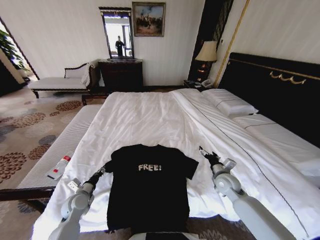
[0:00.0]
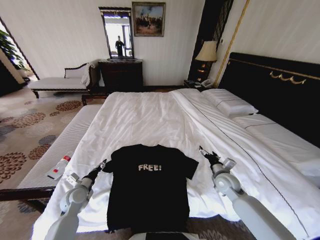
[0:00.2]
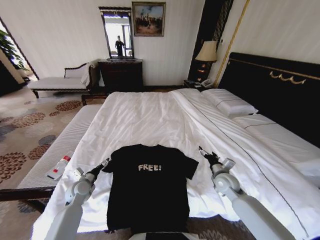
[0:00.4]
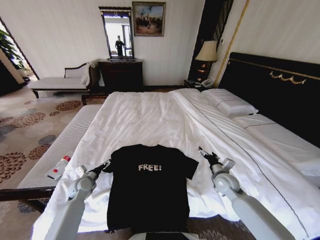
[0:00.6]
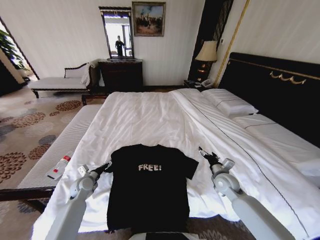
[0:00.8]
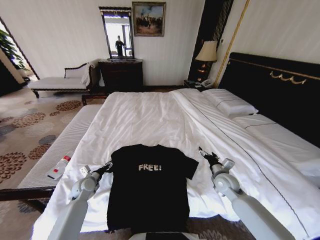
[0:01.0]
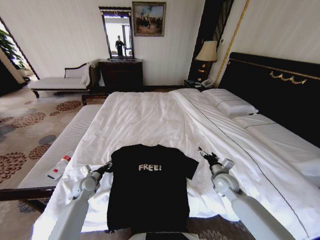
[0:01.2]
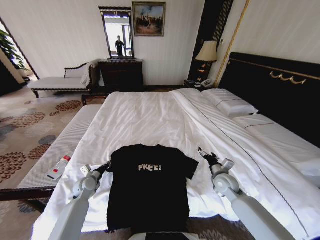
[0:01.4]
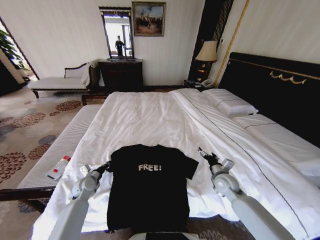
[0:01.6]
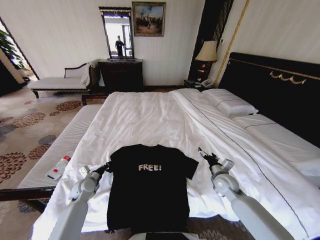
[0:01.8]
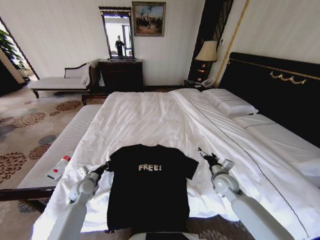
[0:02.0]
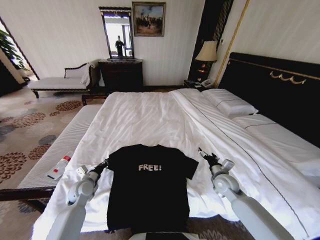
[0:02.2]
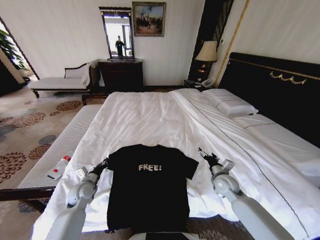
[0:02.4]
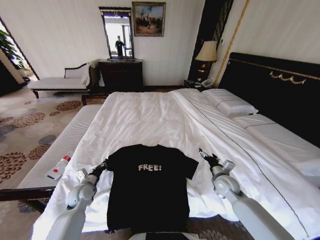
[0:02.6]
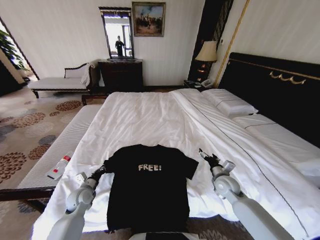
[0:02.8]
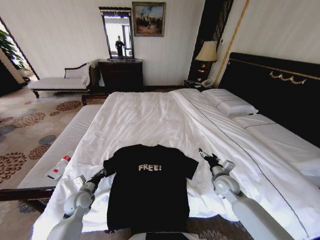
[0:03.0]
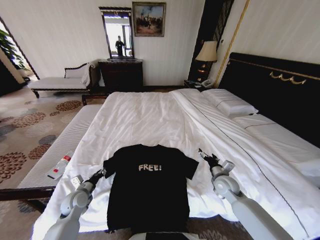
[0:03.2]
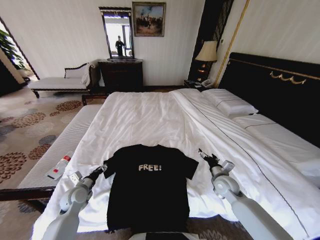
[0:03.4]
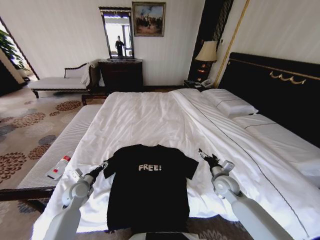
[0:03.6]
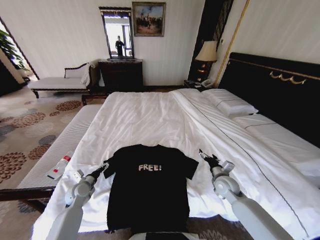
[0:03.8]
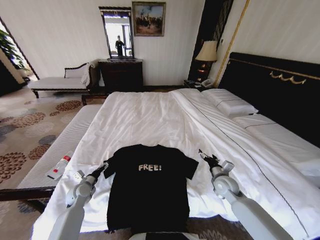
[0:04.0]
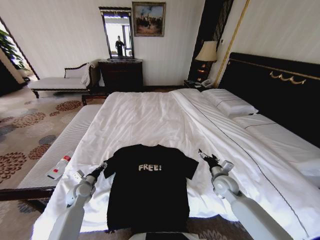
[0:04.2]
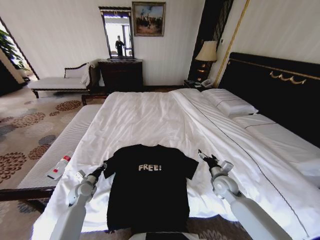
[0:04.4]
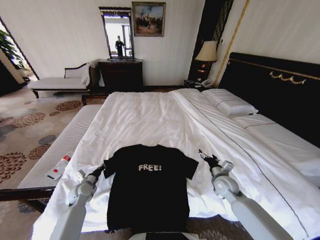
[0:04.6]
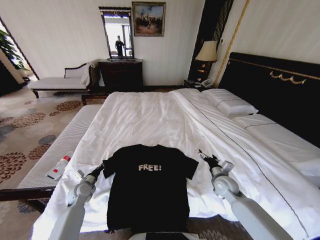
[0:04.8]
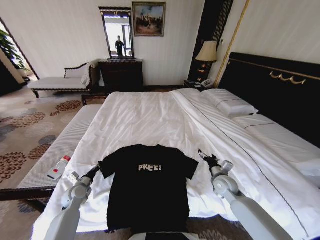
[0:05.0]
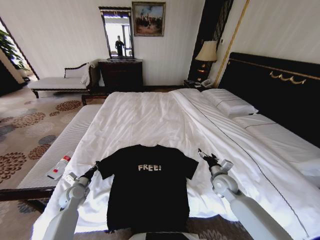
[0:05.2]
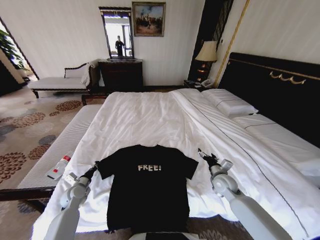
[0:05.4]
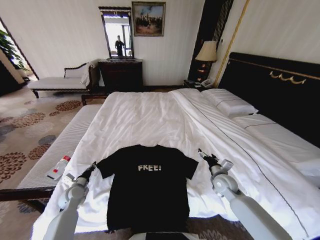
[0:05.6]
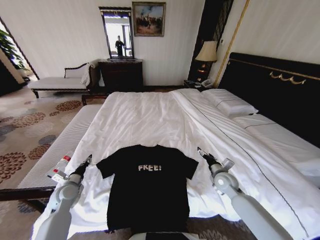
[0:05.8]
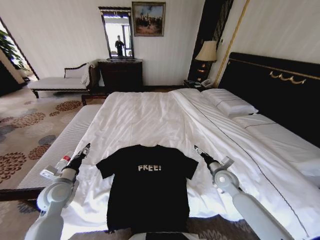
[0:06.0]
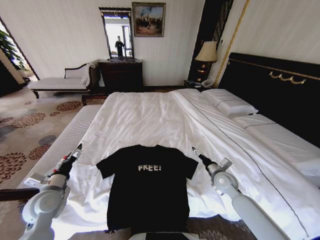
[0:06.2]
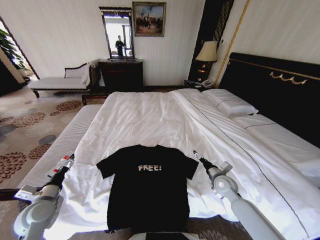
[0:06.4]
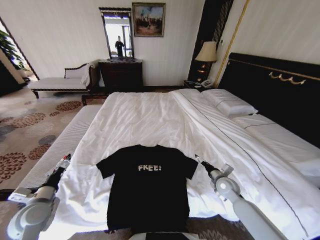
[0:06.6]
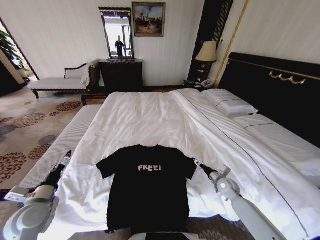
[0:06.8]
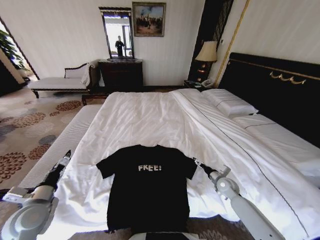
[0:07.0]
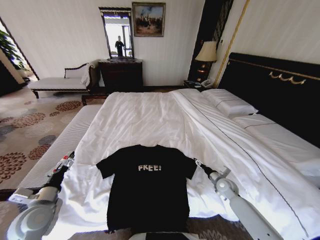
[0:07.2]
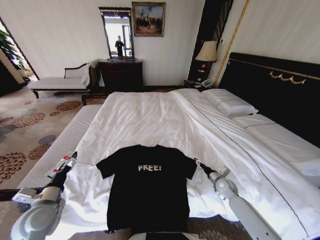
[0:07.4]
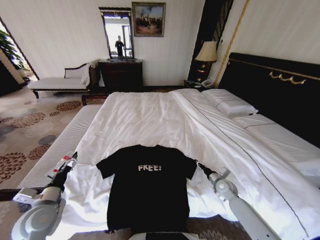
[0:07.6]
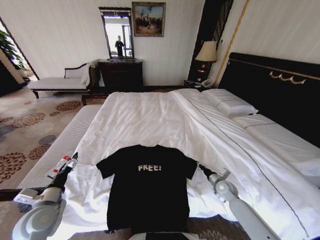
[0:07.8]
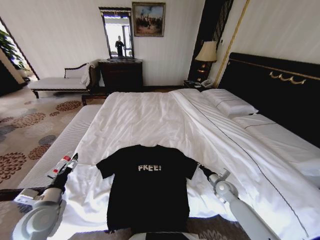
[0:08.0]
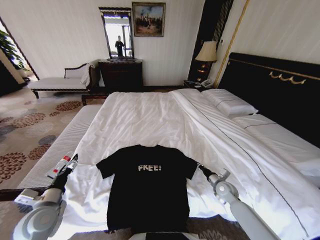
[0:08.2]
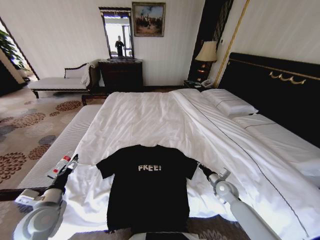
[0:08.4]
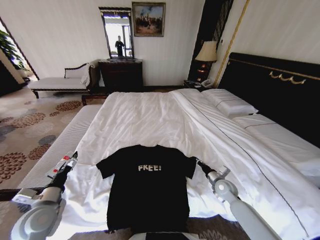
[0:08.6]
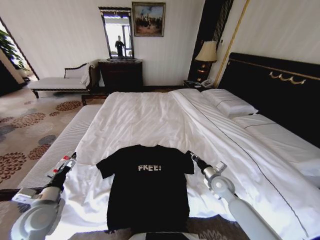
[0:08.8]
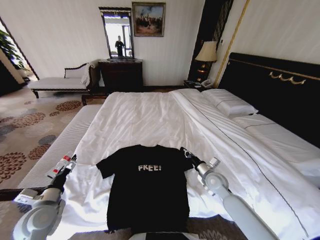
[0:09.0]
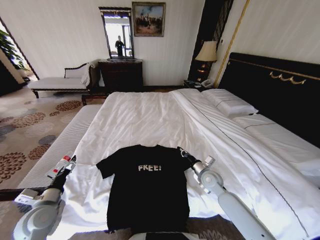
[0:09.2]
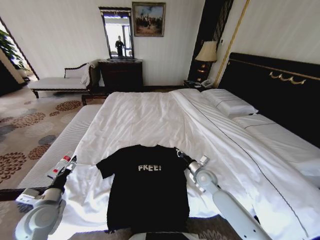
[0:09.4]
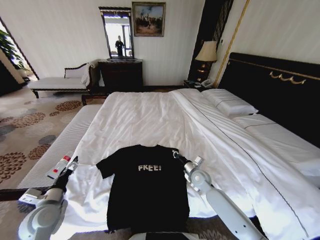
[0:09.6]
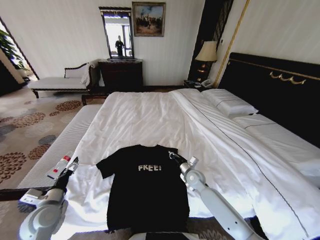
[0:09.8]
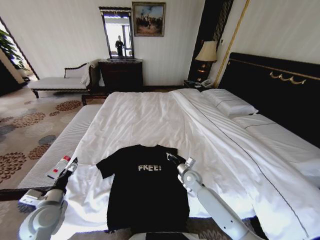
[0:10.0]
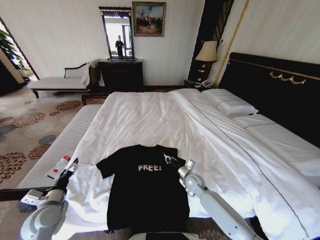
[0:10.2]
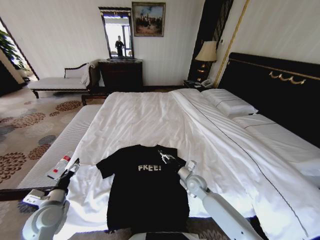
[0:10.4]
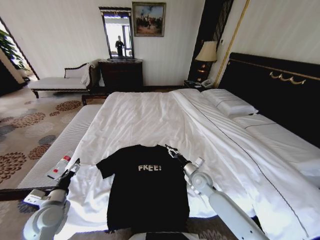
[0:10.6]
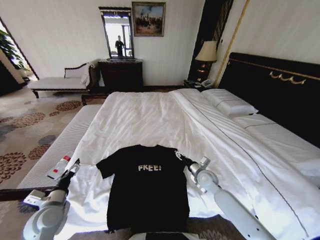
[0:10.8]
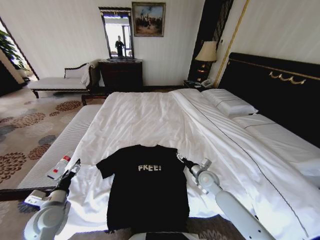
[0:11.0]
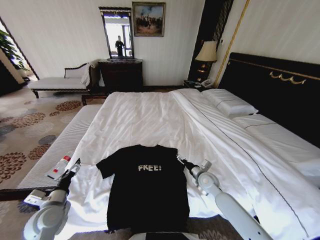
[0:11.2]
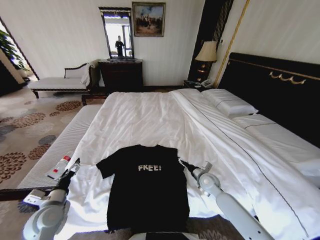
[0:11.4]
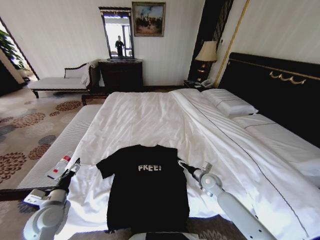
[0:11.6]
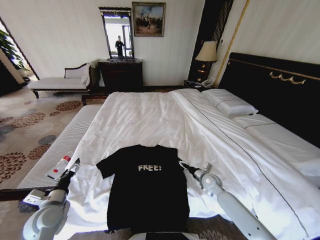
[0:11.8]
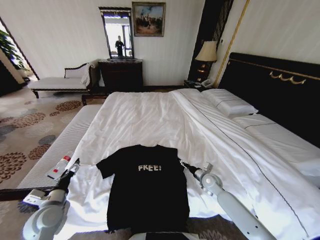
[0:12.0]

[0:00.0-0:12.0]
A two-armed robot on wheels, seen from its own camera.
Task of the whole recording: Fold the clothes on the bed.
0:00.0 to 0:01.6: The left gripper is displaced forward by roughly 10 cm, and opens, then closes again.
0:01.6 to 0:03.0: The left gripper travels backward by some 5 cm.
0:03.0 to 0:04.4: The left gripper changes place by about 5 cm, and opens and closes again.
0:04.4 to 0:06.0: The left gripper moves upward, approximately 15 cm.
0:06.0 to 0:07.6: The left gripper goes about 10 cm backward, and opens up. The right gripper moves downward, roughly 10 cm, and closes up.
0:07.6 to 0:09.0: The right gripper is displaced to the left and upward by approximately 15 cm, and closes.
0:09.0 to 0:10.4: The right gripper shifts about 10 cm to the left.
0:10.4 to 0:12.0: The right gripper goes approximately 10 cm to the right, and opens its fingers.

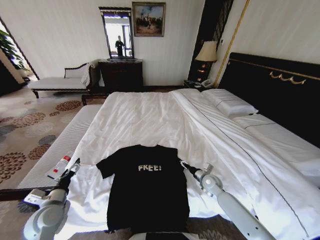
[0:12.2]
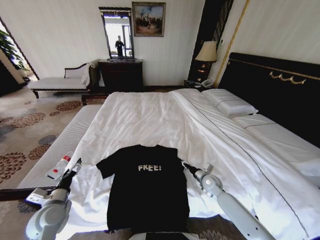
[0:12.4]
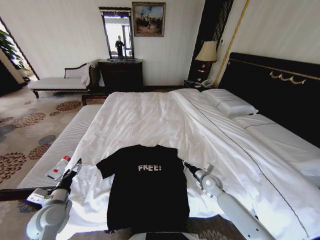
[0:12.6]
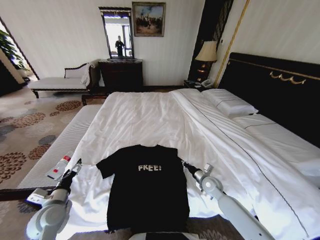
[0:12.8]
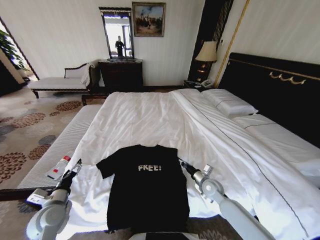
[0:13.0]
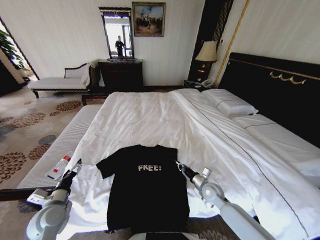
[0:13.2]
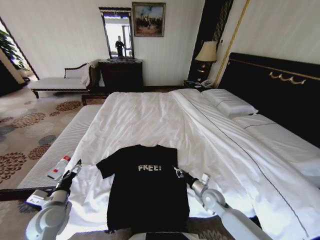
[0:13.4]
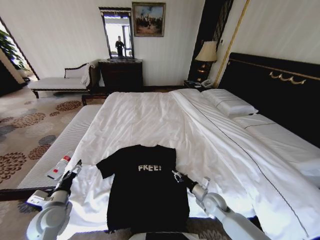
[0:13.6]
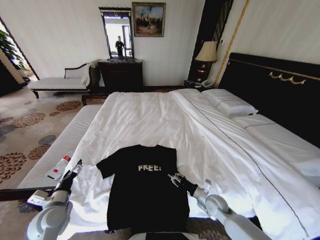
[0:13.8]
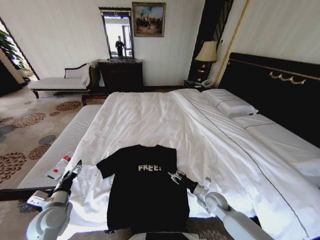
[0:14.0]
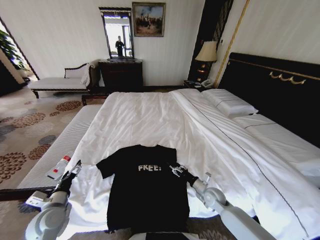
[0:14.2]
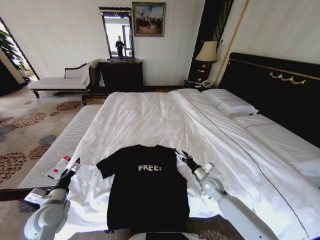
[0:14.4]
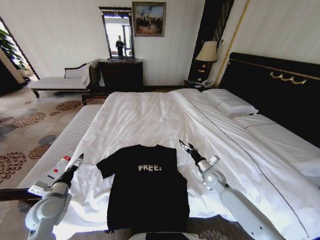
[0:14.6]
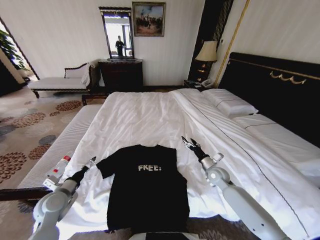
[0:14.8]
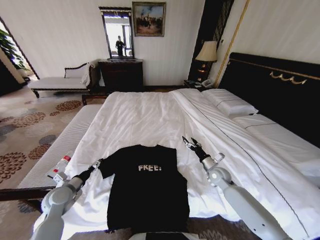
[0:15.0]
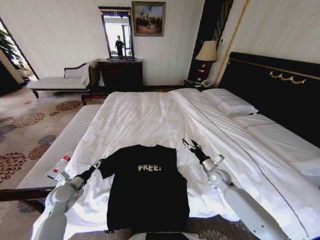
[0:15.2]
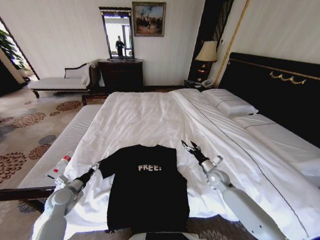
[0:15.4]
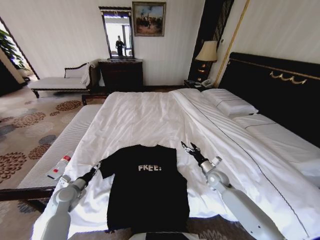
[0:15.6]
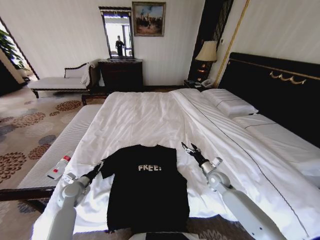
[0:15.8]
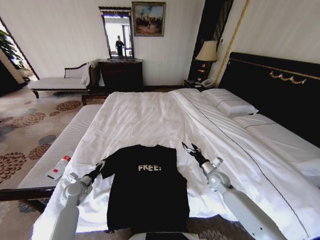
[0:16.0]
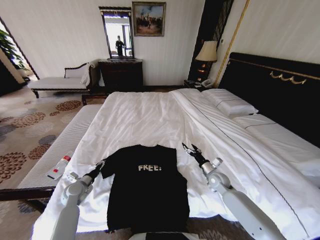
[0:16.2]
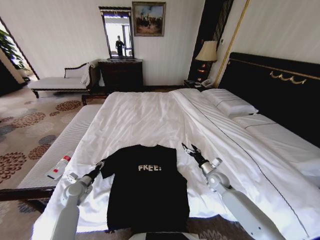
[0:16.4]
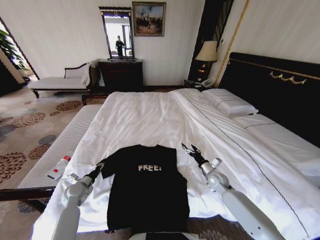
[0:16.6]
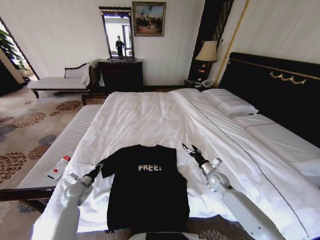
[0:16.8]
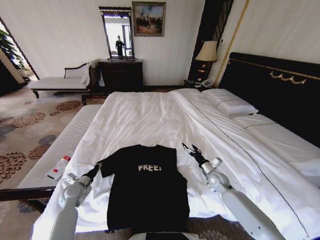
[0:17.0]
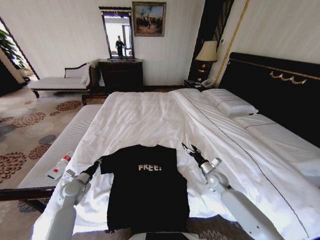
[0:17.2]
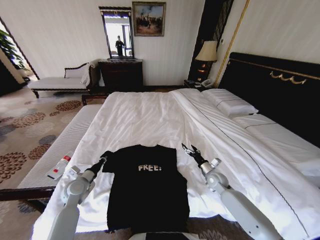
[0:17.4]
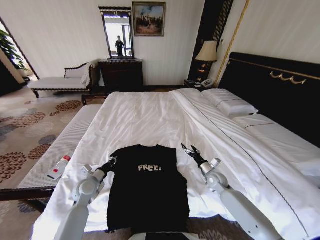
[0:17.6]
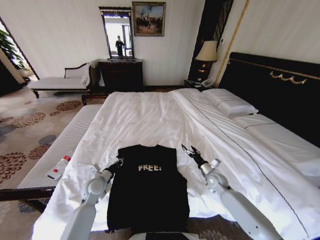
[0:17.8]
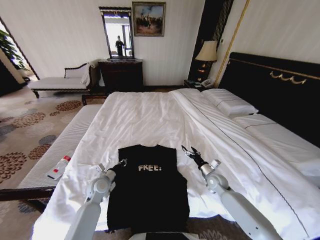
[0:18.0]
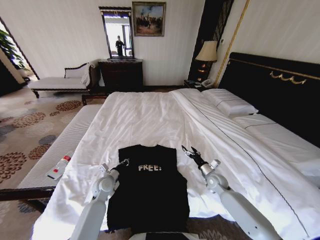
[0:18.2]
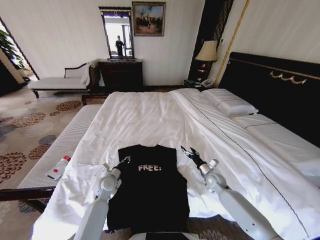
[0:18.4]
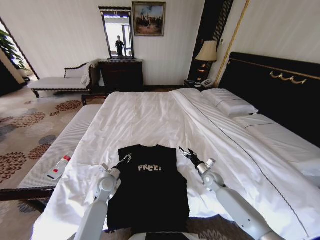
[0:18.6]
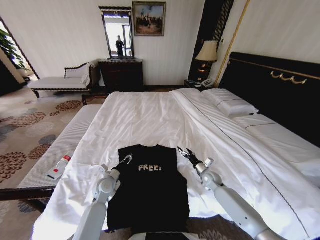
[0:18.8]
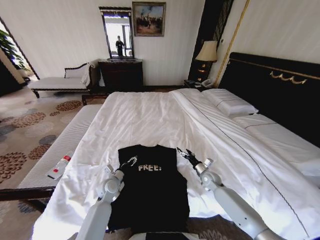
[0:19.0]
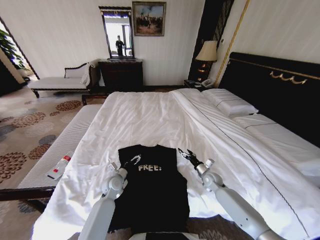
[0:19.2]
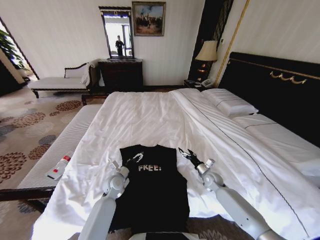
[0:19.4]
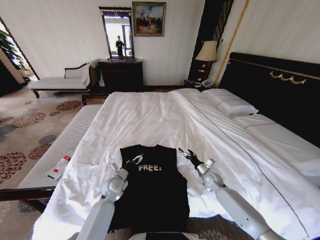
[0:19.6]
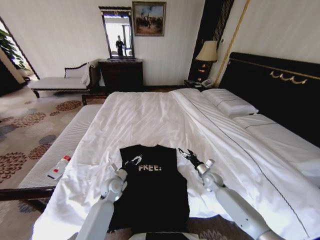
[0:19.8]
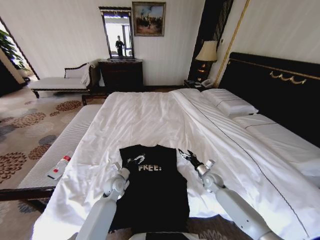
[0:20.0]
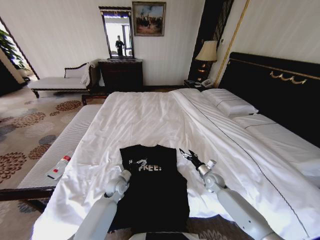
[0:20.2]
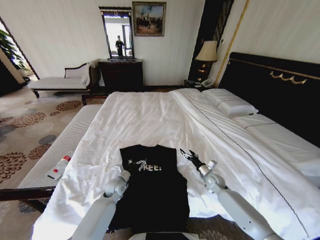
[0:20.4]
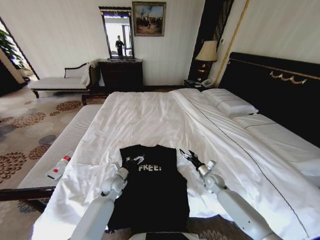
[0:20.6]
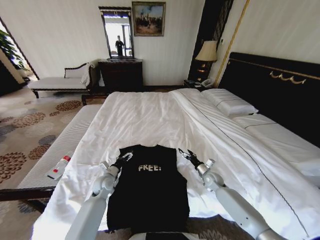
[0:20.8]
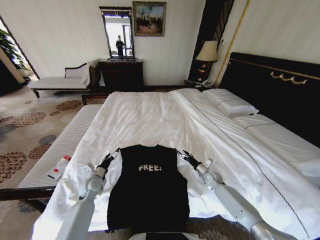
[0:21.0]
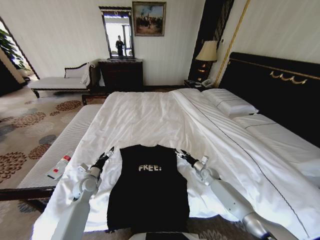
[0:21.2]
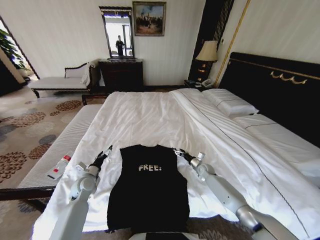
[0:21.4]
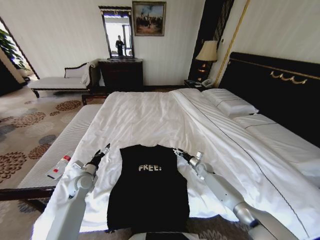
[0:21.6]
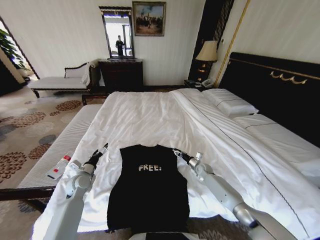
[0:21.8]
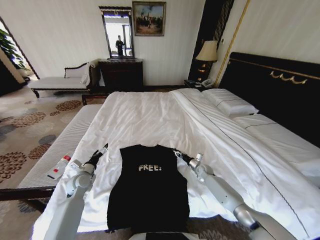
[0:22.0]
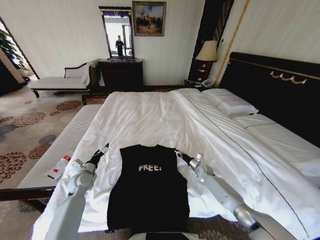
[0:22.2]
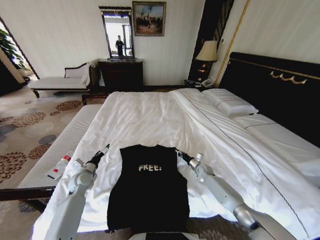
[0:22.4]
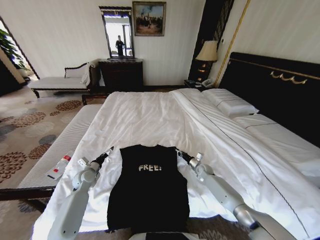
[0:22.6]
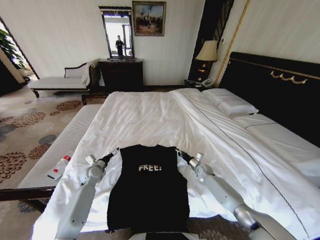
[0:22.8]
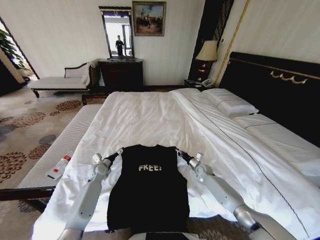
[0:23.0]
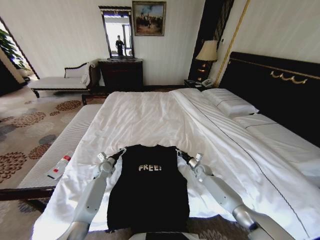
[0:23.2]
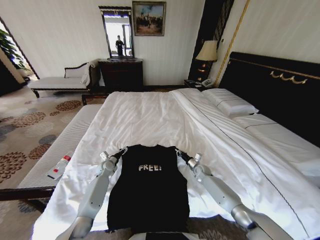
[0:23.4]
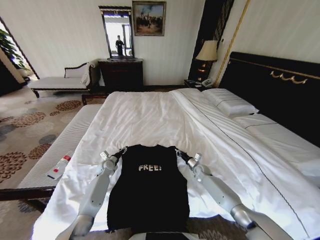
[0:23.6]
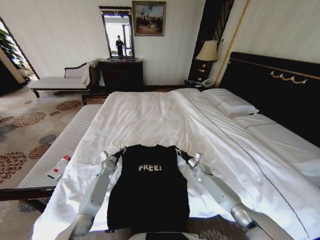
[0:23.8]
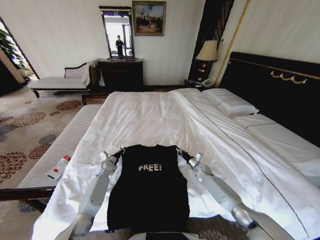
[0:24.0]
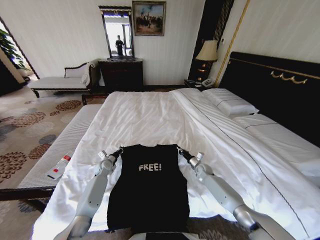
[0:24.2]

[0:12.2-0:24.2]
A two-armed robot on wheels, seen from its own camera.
Task of the whole recording: Fold the clothes on the bed.
0:12.2 to 0:13.8: The right gripper moves backward, some 10 cm, and closes its fingers.
0:13.8 to 0:15.2: The left gripper travels forward by roughly 10 cm, while the right gripper shifts approximately 10 cm forward and upward, and opens up.
0:15.2 to 0:16.6: The left gripper shifts some 5 cm downward, and closes.
0:16.6 to 0:18.2: The left gripper heads to the right, covering about 15 cm, and closes up.
0:18.2 to 0:19.8: The left gripper opens up.
0:19.8 to 0:21.2: The right gripper heads forward, covering roughly 5 cm; the left gripper moves to the left, roughly 10 cm.
0:21.2 to 0:22.6: The right gripper closes up.
0:22.6 to 0:24.2: The left gripper goes approximately 10 cm forward, to the right and downward, and closes its fingers.
